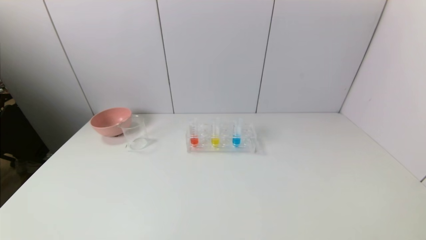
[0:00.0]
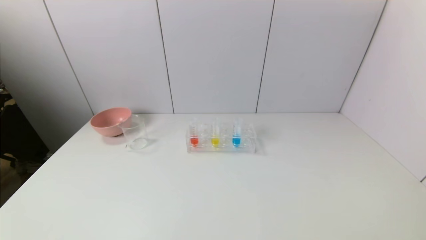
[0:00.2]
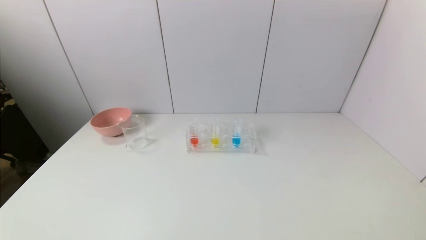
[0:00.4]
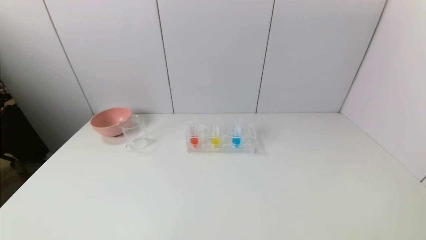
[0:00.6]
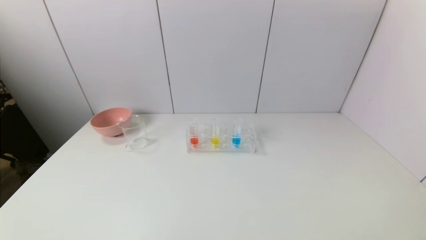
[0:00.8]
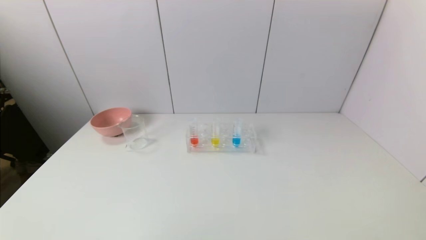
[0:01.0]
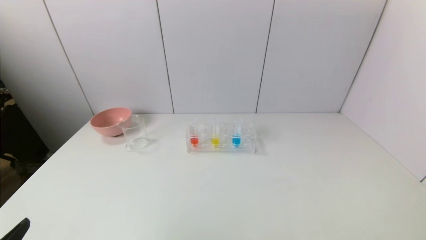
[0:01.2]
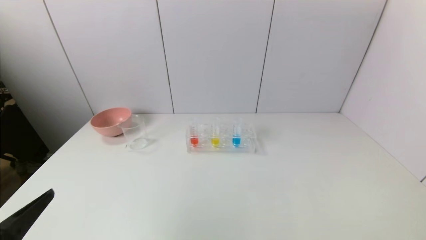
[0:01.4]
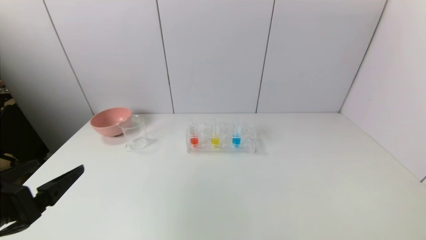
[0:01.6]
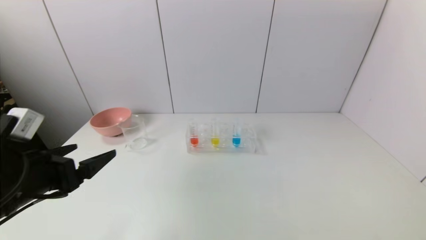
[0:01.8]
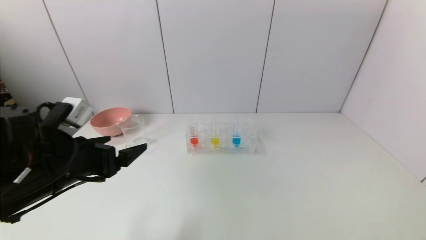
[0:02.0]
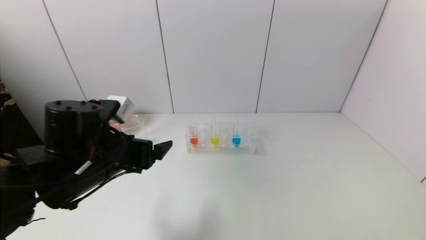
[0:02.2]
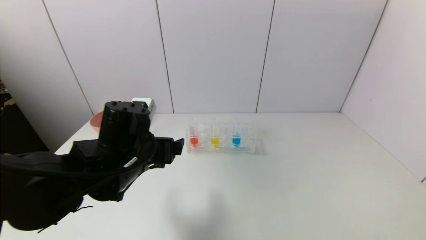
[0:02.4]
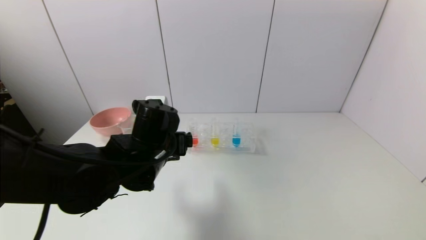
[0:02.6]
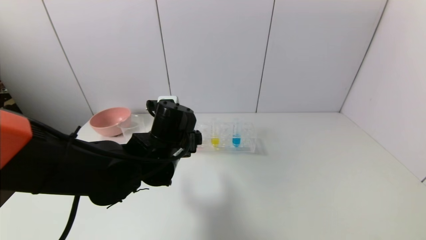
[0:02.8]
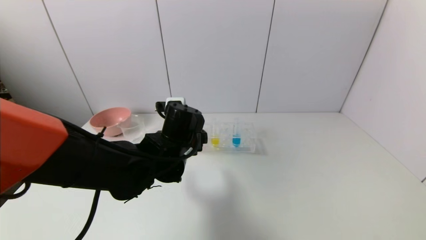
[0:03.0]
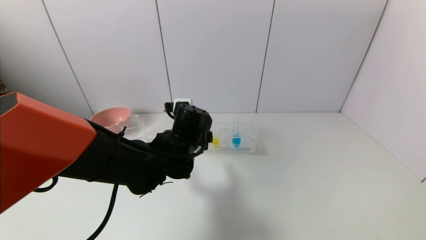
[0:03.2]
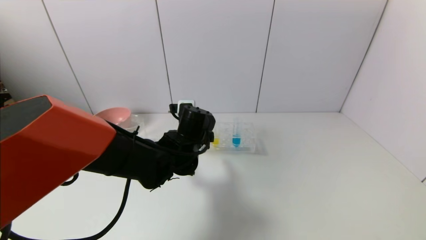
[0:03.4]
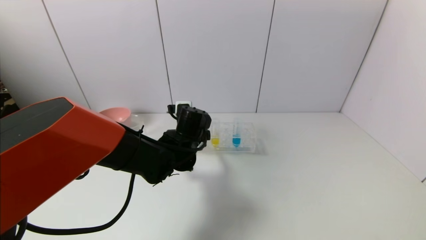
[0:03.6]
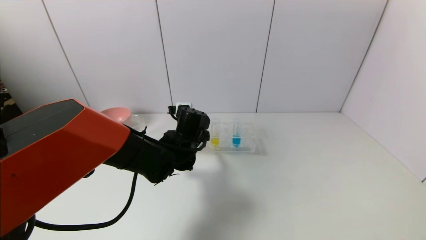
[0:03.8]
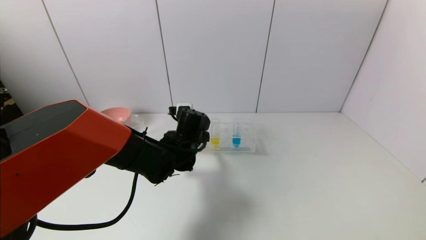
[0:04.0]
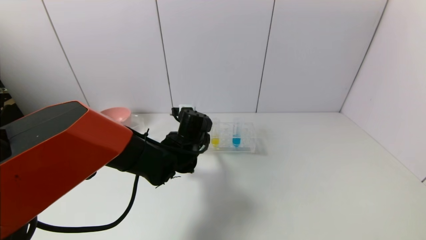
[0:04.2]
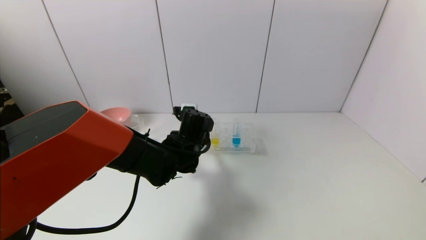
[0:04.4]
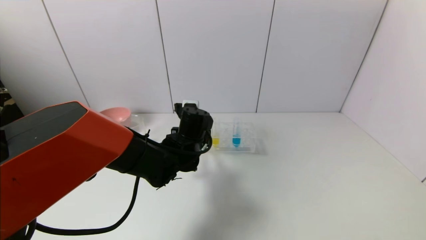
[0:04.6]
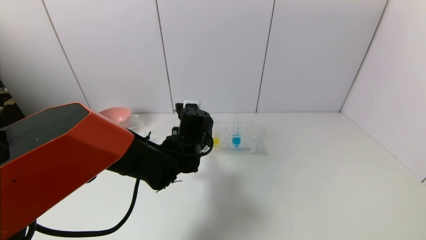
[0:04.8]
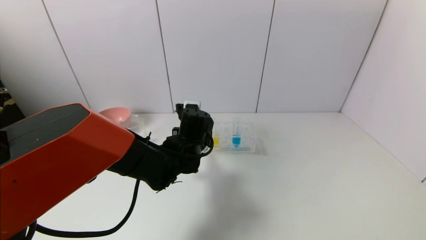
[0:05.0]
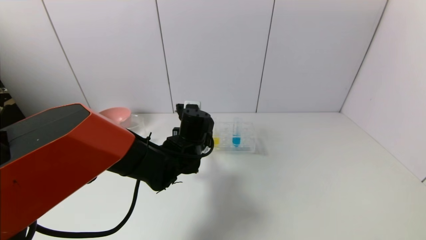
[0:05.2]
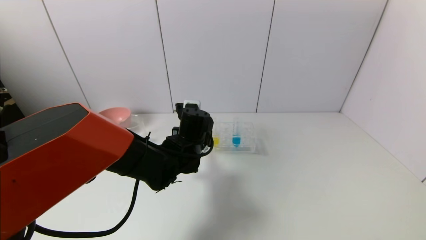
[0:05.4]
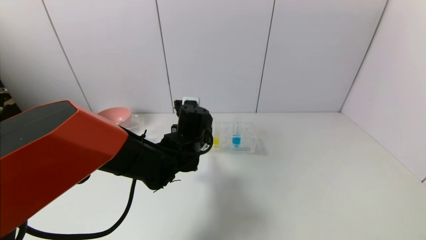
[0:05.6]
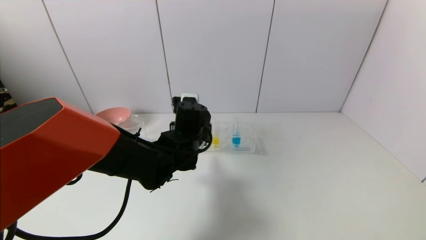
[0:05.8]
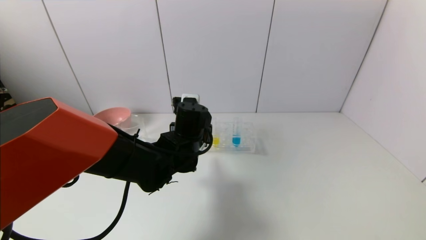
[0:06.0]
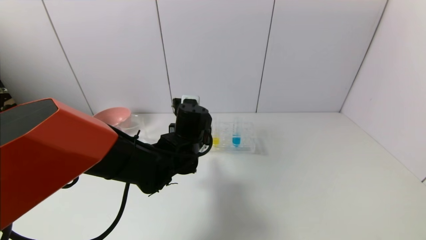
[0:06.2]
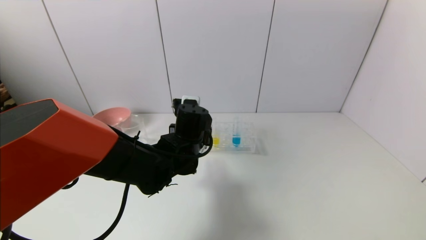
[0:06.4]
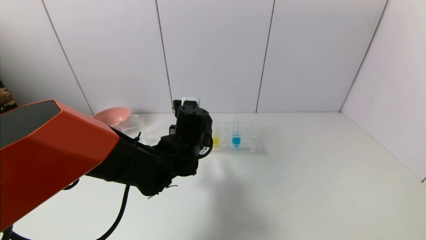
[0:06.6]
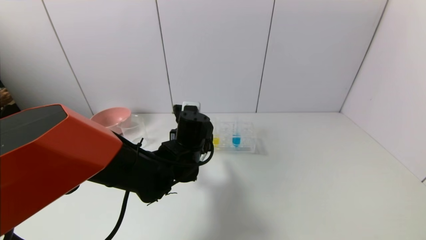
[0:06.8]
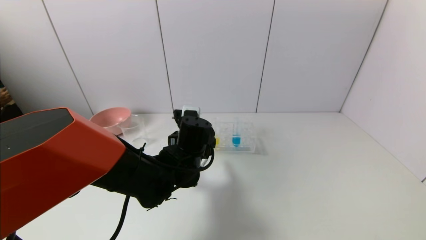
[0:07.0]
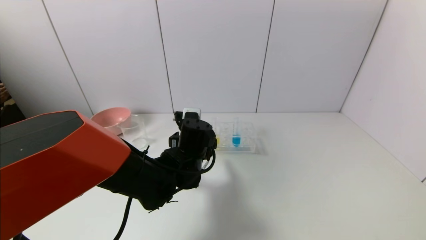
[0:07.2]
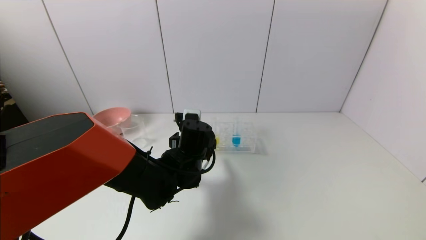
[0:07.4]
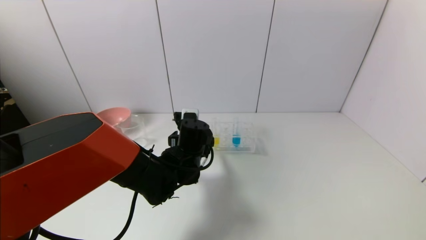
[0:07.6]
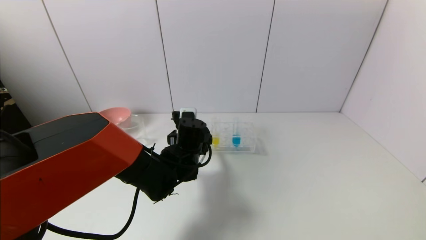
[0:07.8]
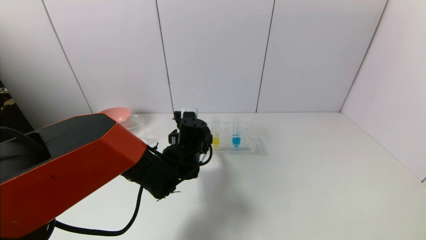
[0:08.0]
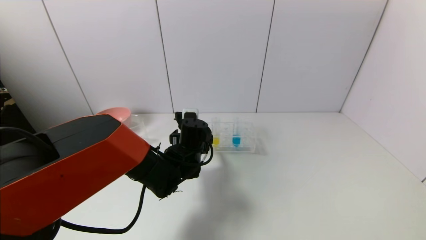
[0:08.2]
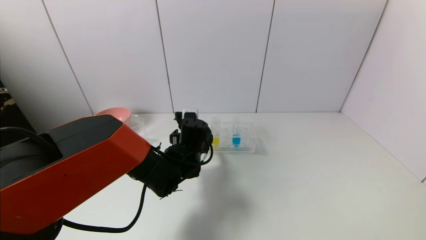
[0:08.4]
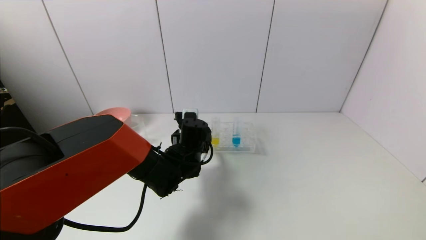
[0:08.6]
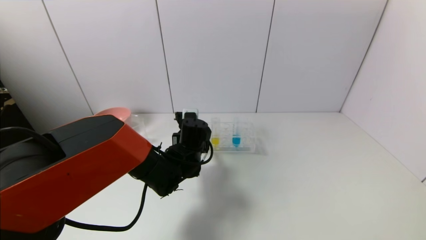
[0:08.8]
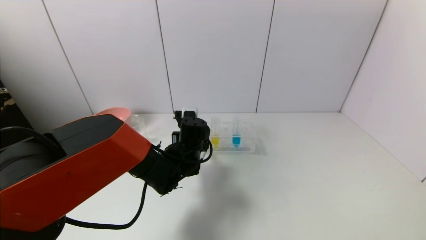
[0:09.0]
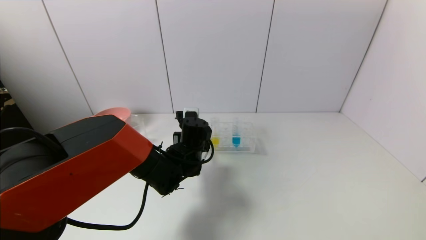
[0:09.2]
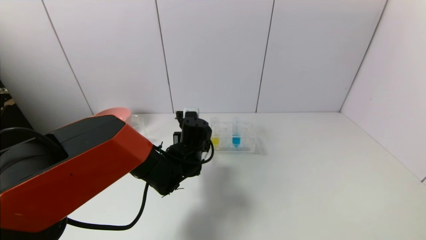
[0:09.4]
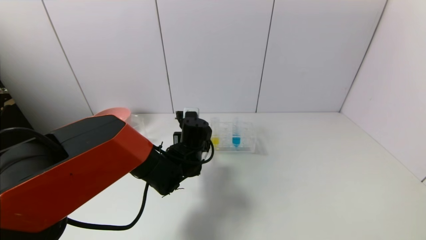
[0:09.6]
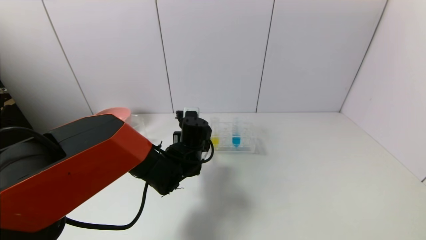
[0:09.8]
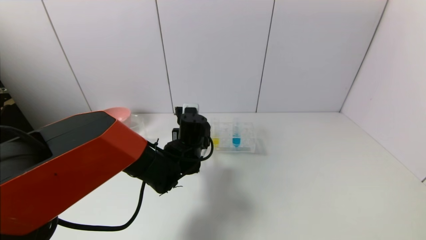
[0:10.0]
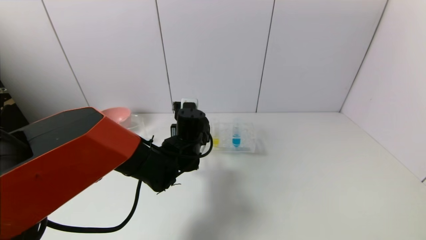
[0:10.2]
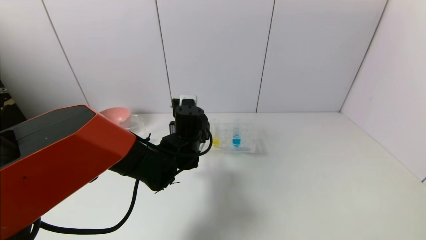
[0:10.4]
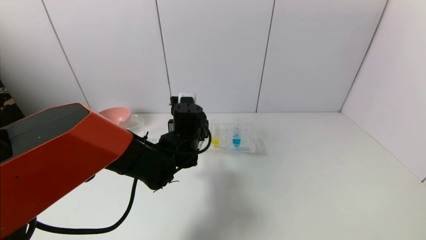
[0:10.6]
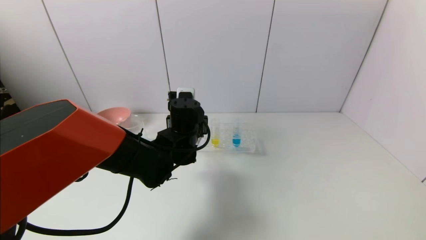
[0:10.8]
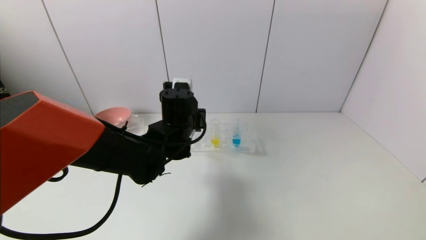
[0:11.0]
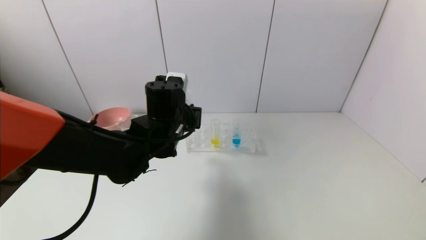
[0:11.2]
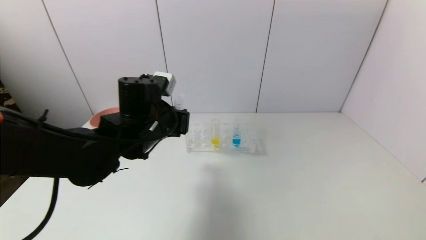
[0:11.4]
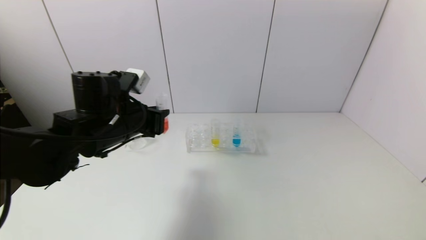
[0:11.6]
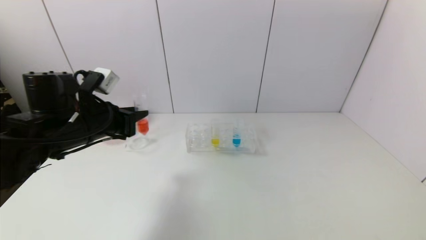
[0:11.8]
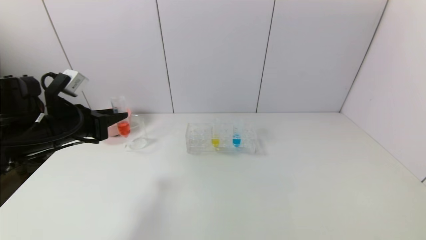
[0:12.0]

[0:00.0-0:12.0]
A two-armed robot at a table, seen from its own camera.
Task of the whole recording: pick up the test tube with red pigment and the test tube with blue pigment by grippers and pour them into the container.
Step, 0:00.0 to 0:09.2: Grasp the red reagent with the left gripper.
0:00.0 to 0:01.6: The left gripper moves forward and upward, approximately 15 cm.
0:01.6 to 0:03.0: The left gripper moves to the right and forward, some 30 cm.
0:03.0 to 0:04.4: The left gripper heads forward, covering some 5 cm, and closes its fingers.
0:04.4 to 0:06.0: The left gripper closes its fingers.
0:06.0 to 0:07.6: The left gripper opens its fingers.
0:07.6 to 0:09.0: The left gripper closes its fingers.
0:09.0 to 0:10.4: The grippers move only a little.
0:10.4 to 0:12.0: The left gripper is displaced to the left by approximately 25 cm.

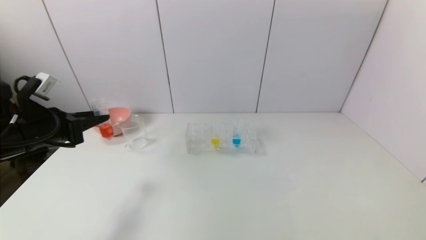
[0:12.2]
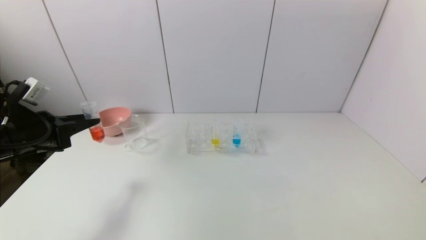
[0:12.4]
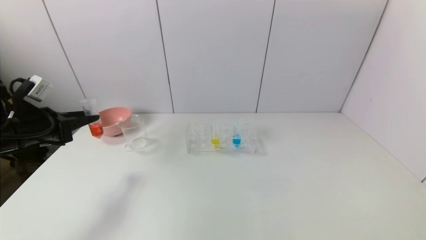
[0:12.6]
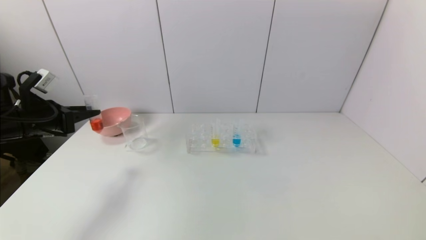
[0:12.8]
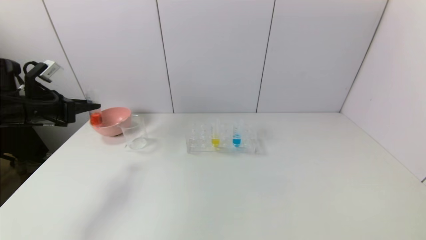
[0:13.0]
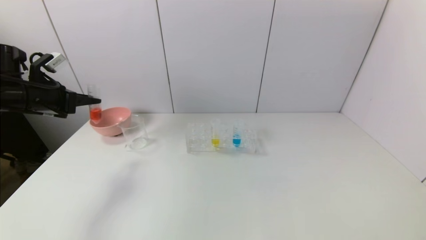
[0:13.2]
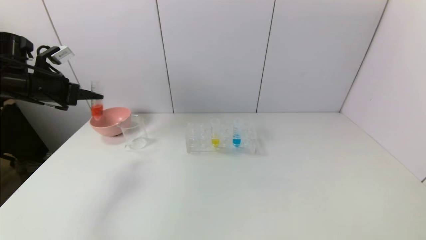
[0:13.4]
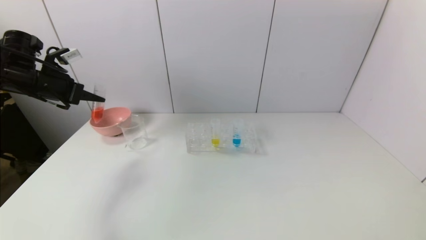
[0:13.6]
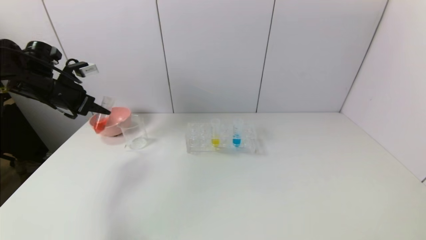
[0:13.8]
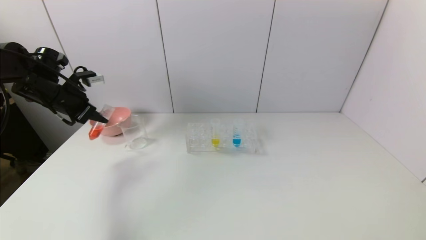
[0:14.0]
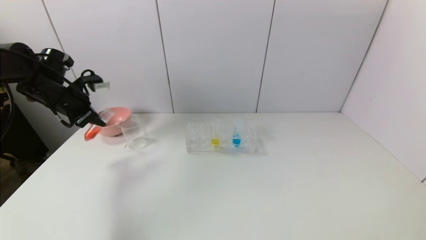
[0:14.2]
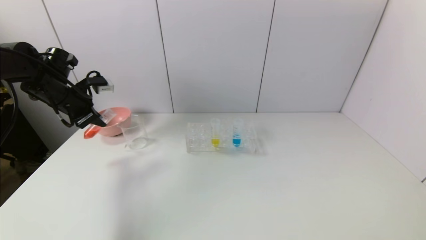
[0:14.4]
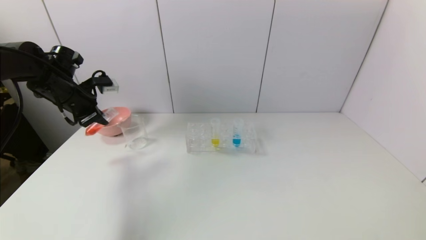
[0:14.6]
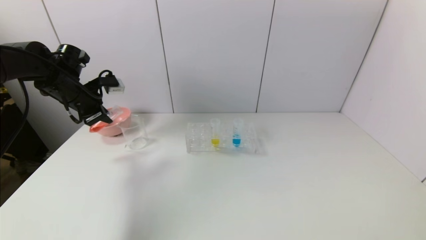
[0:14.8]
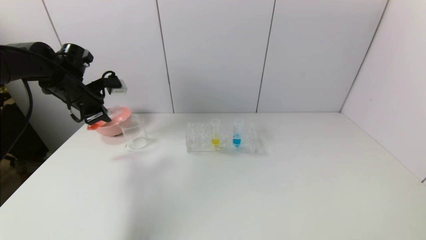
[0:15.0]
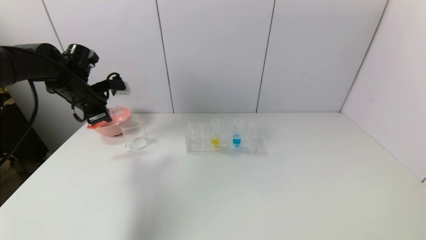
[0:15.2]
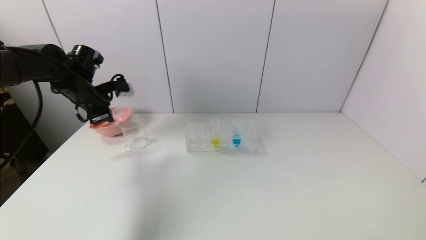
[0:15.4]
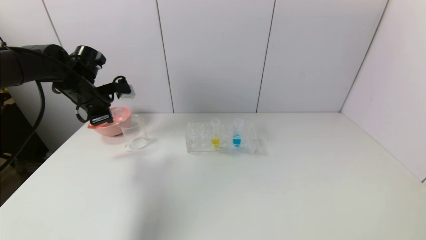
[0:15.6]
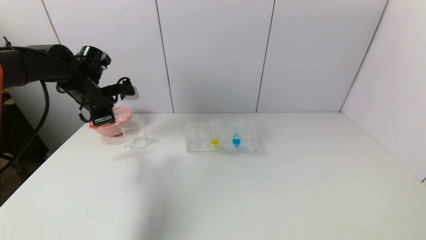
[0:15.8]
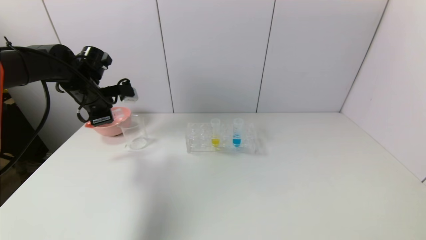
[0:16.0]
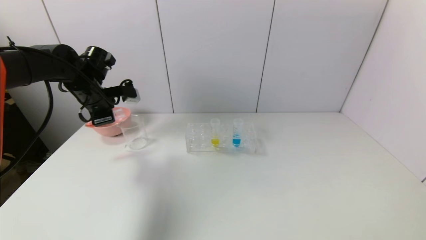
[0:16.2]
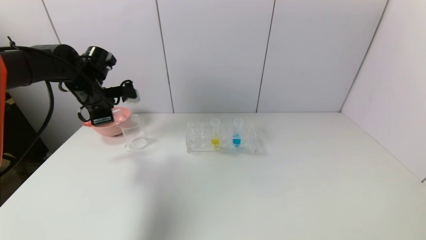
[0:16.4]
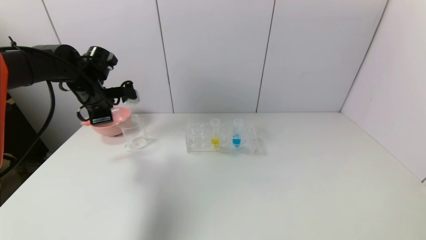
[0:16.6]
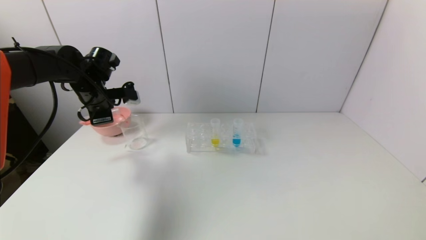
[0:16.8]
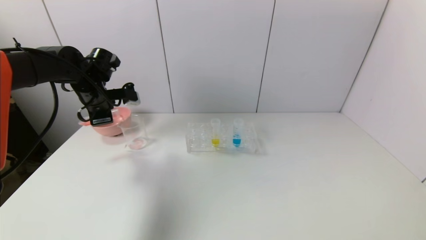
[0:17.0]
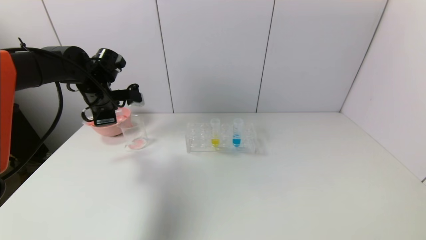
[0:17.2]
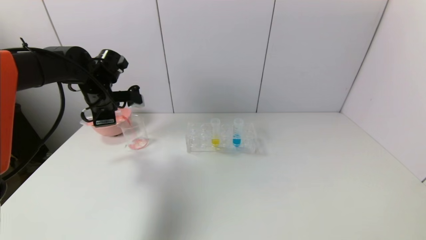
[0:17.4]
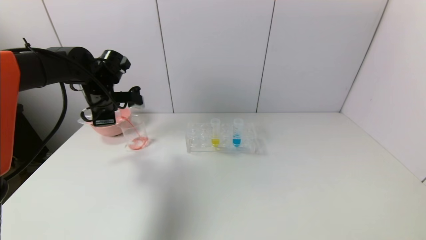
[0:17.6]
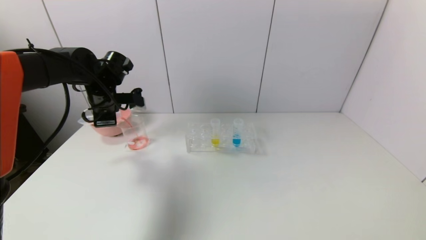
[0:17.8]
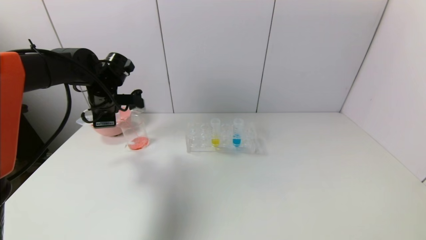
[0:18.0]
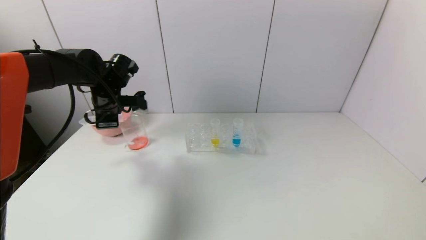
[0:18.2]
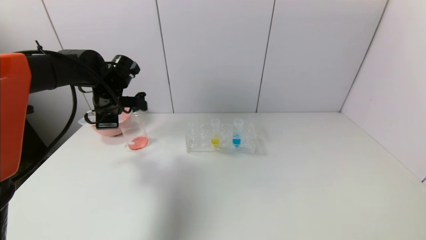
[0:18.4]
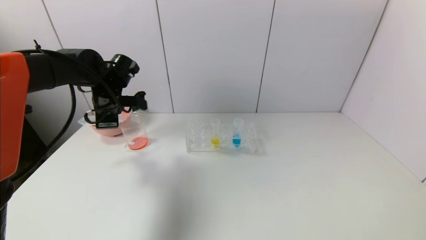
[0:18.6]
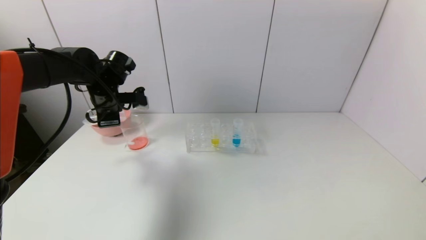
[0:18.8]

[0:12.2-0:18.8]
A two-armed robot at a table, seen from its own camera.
Task of the whole recording: pick up the test tube with red pigment and the test tube with blue pigment by grippers and pour them into the container.
0:12.2 to 0:13.8: The left gripper shifts approximately 15 cm forward.
0:13.8 to 0:15.4: The left gripper moves to the right, approximately 5 cm.
0:15.4 to 0:17.2: The grippers move only a little.
0:17.2 to 0:18.8: The grippers move only a little.
